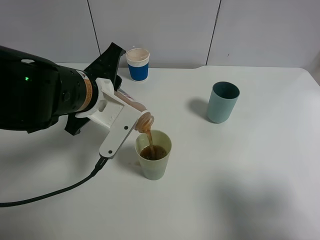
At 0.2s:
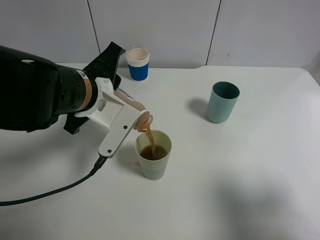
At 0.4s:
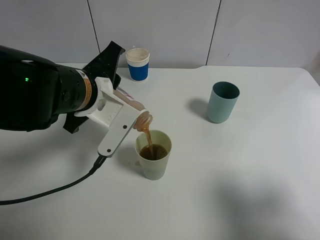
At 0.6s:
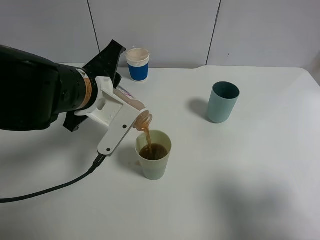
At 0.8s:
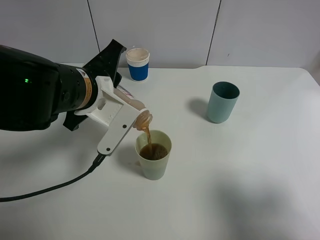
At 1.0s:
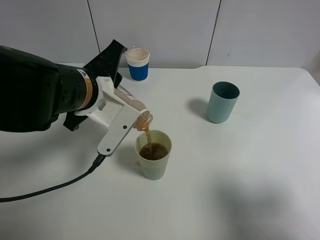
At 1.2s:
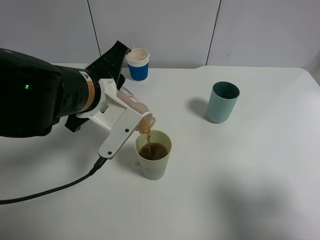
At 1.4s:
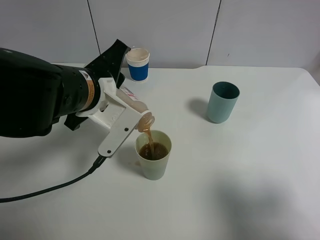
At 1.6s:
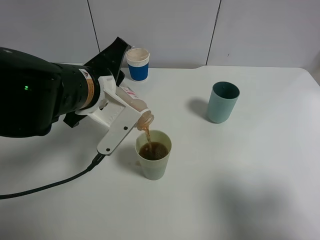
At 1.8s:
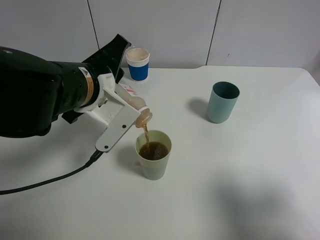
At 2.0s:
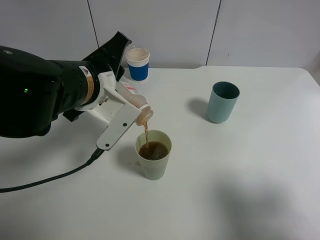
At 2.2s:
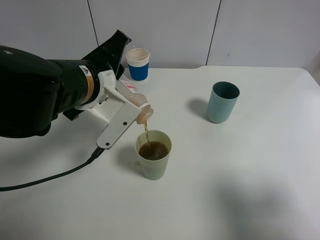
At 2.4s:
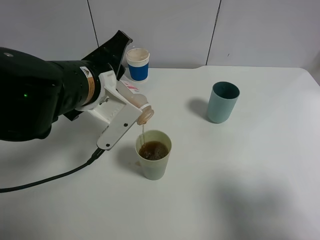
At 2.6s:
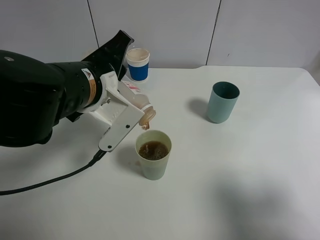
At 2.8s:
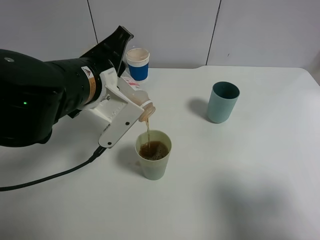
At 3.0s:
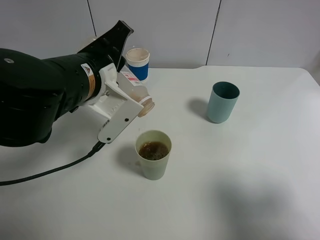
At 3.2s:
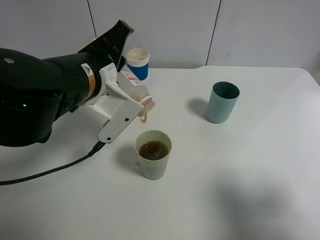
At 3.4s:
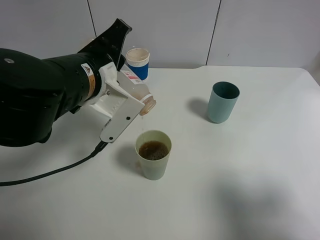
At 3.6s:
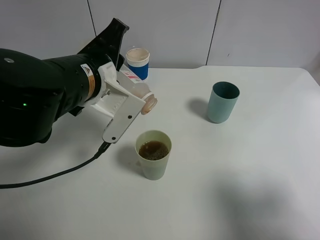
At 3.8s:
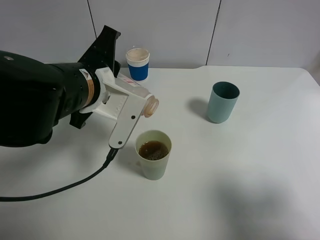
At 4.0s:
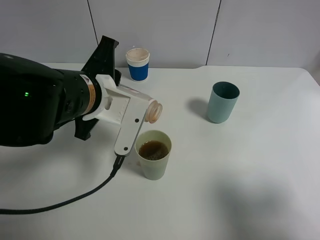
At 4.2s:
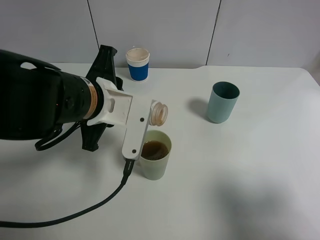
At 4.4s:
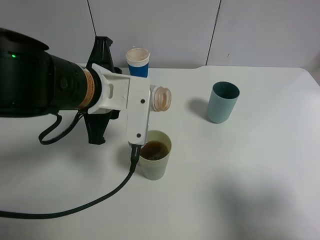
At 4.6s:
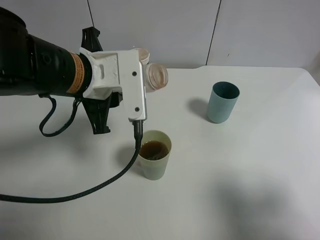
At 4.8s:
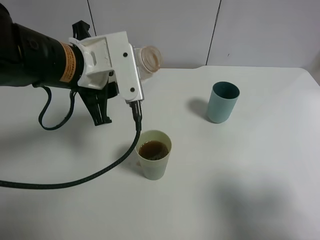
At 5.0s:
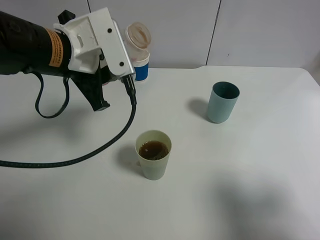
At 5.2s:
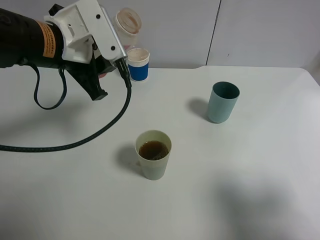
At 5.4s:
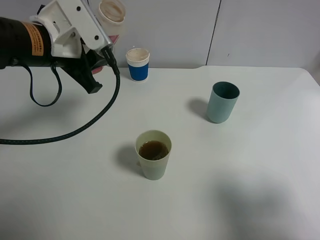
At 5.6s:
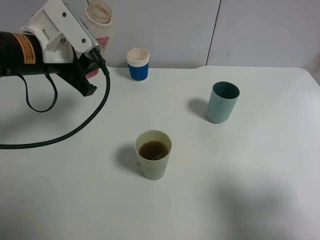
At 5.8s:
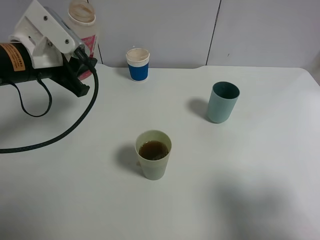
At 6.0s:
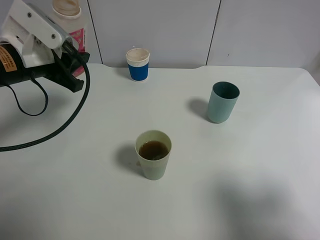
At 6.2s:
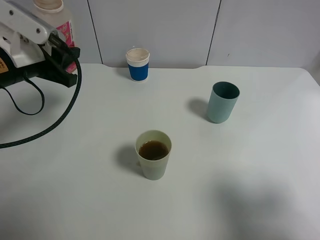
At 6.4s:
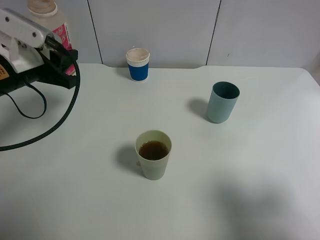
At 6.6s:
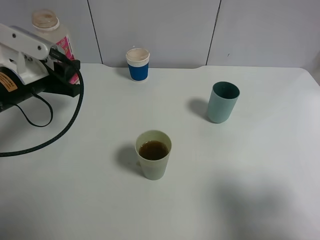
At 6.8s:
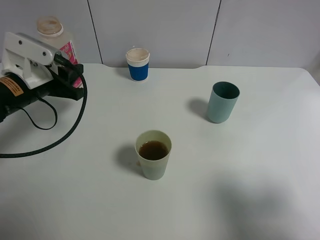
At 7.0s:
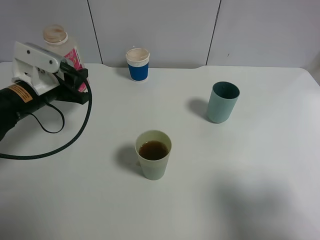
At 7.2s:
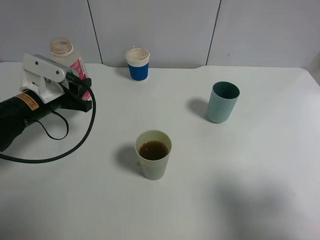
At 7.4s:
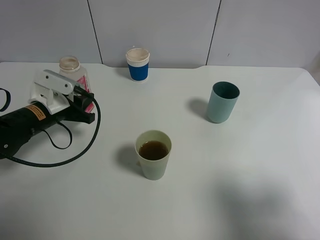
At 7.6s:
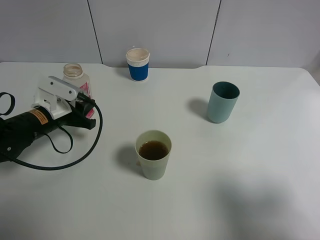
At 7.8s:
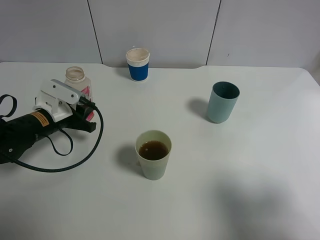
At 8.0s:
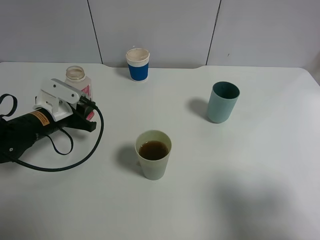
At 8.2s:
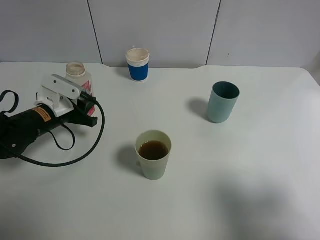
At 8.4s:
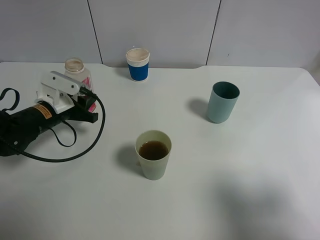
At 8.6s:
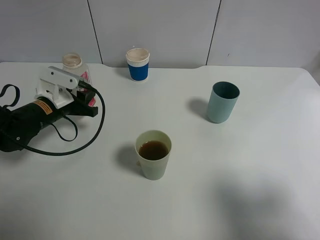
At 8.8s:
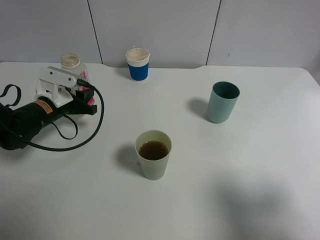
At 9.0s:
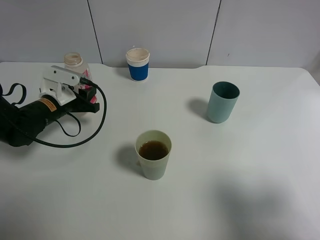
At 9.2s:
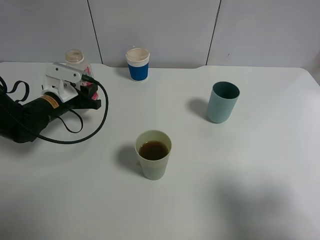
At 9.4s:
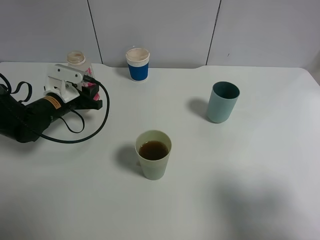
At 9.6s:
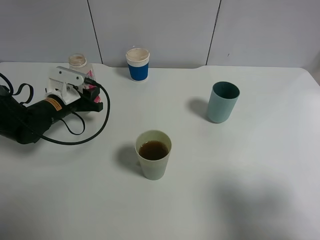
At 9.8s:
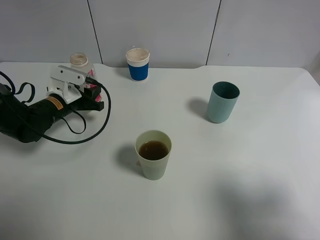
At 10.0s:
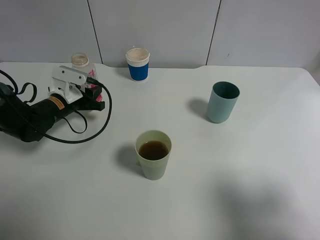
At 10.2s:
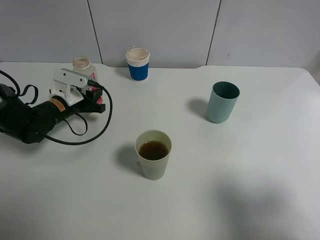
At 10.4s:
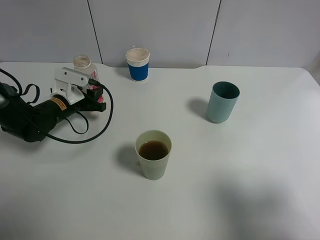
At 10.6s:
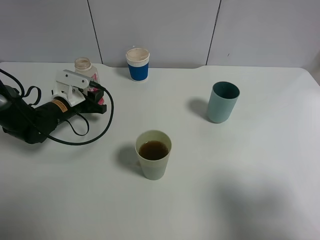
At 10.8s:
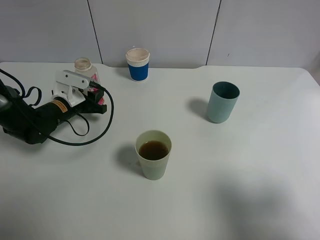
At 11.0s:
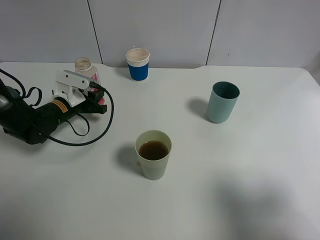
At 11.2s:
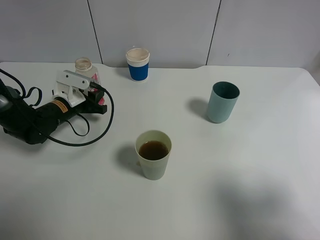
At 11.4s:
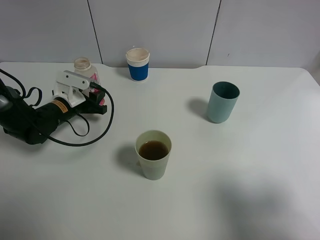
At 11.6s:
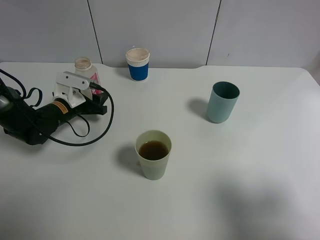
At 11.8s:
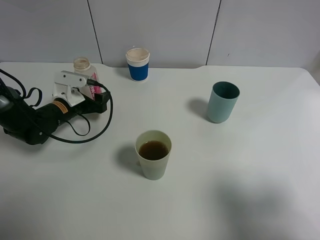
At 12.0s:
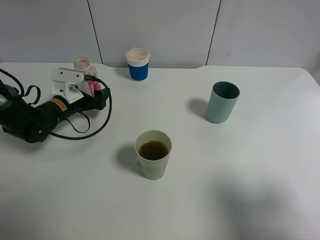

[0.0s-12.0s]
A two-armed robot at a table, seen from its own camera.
Task of the whole recording: use a gripper to hold the bottle of the drink and pour it into a random cup.
Step, 0.0s to 4.2s: Pour the cranberry juice into the White Plastic Cup with the left gripper.
0.0s to 3.0s: The grippers make only small movements.
4.4s to 6.0s: The left gripper shifts some 15 cm to the left and forward.
6.0s to 7.6s: The left gripper is displaced downward by about 15 cm.
7.6s to 9.0s: The grippers move only a little.
9.0s to 10.4s: The grippers stay close to where they were, moving slightly.
10.4s to 12.0s: The left gripper opens its fingers.

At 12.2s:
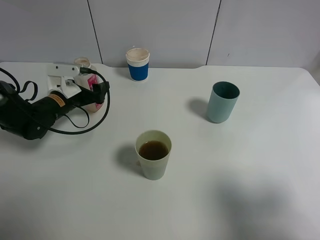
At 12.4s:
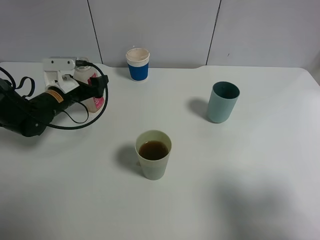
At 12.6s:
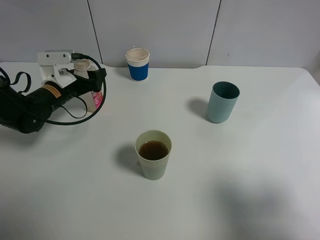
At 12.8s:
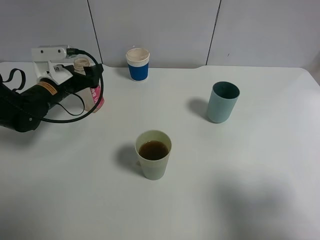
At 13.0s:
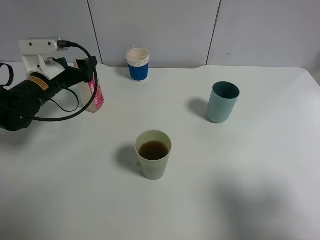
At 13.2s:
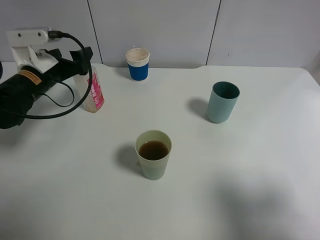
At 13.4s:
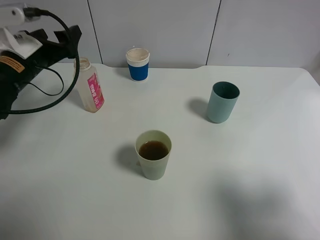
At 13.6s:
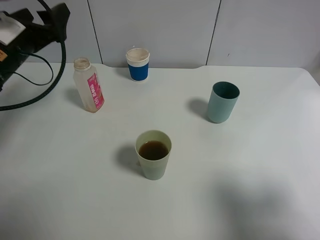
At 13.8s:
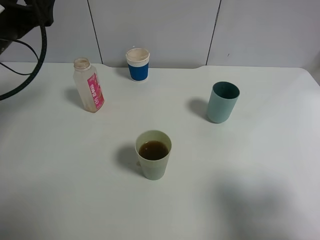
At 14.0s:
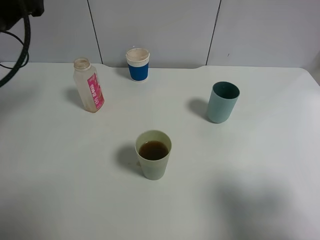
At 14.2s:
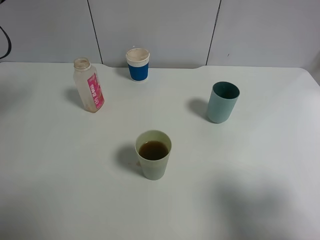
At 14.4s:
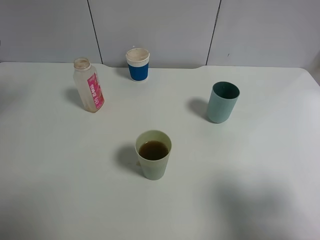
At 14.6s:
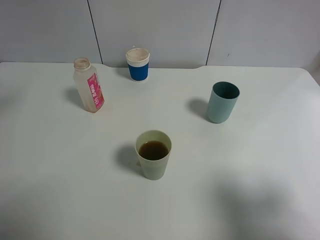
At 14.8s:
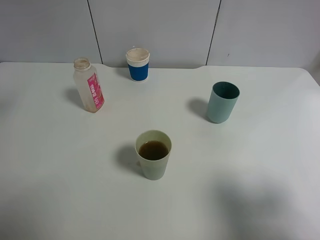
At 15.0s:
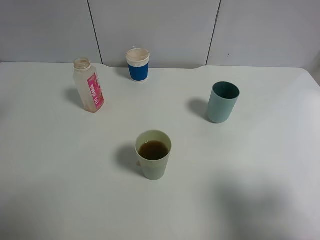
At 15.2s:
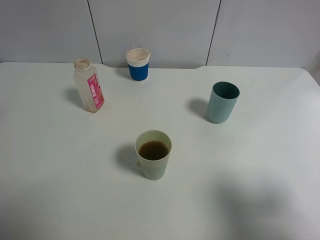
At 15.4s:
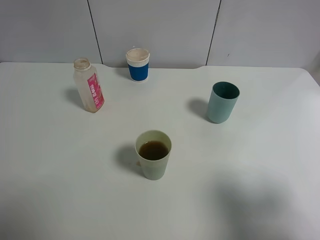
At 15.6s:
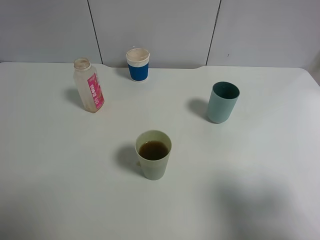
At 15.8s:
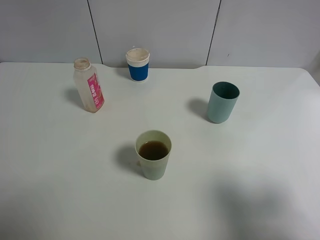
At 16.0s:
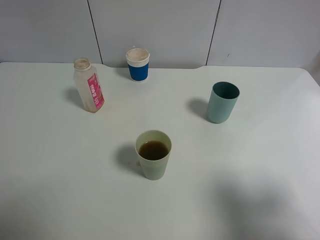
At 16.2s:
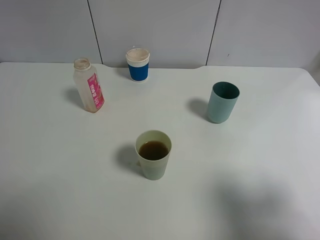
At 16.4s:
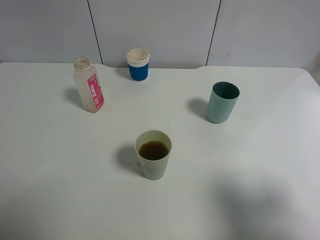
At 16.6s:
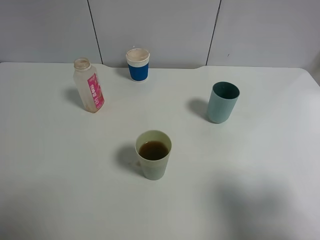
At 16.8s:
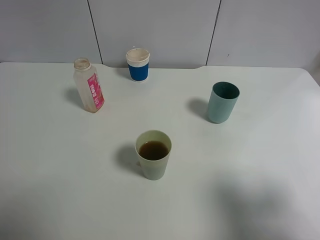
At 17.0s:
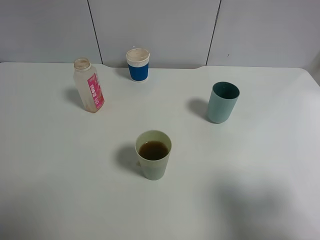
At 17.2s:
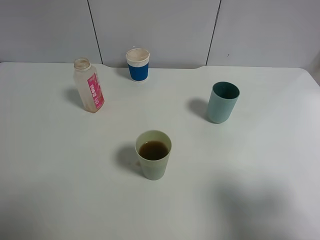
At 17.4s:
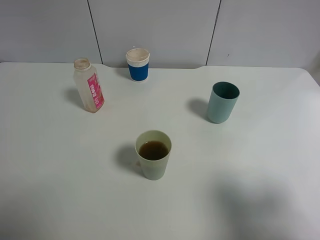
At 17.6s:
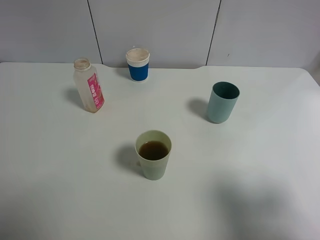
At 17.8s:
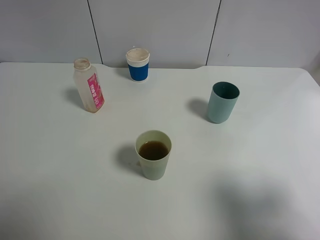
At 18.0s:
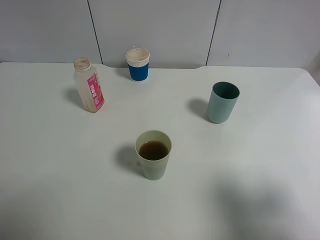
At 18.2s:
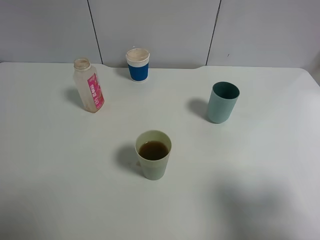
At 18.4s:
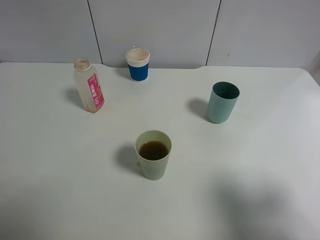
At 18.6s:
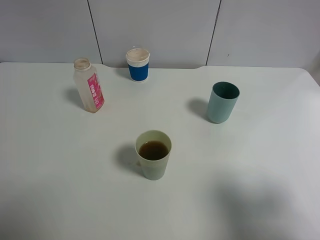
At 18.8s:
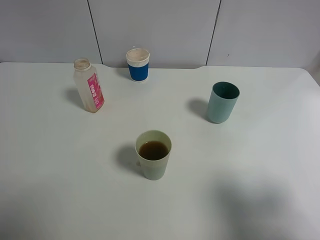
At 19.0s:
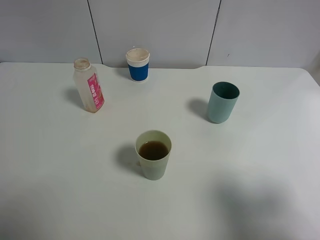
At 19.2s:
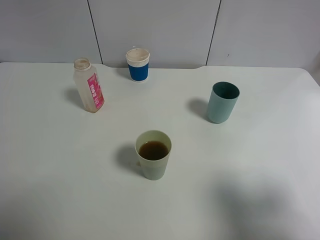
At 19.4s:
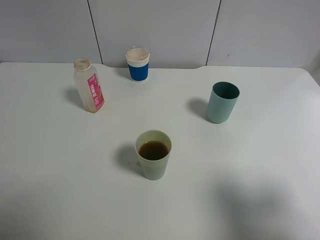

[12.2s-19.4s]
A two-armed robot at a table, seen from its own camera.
Task of the whole recording: use a gripper to hold the bottle of the drink and pour it into a random cup.
12.2s to 13.6s: The left gripper shifts some 15 cm upward.
13.6s to 15.0s: The left gripper goes some 20 cm backward and upward.

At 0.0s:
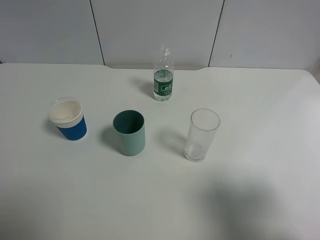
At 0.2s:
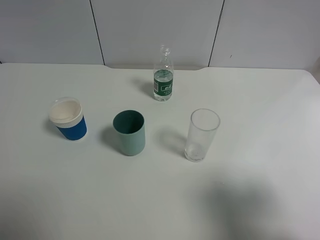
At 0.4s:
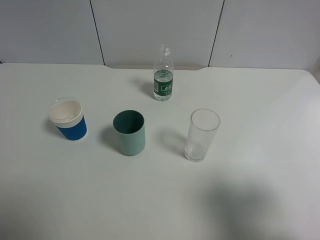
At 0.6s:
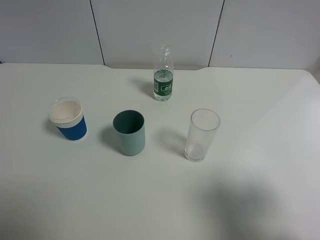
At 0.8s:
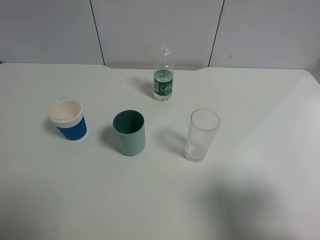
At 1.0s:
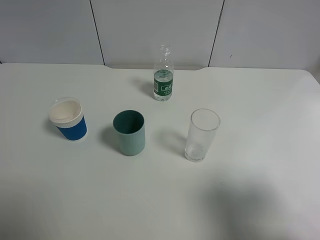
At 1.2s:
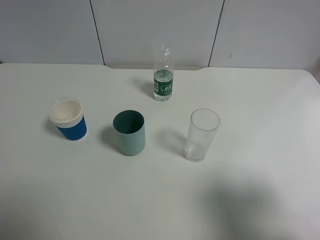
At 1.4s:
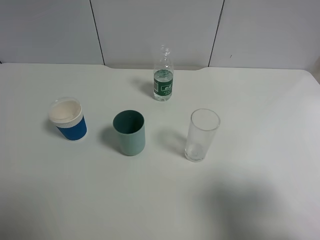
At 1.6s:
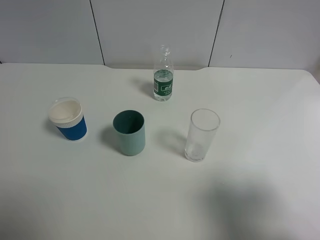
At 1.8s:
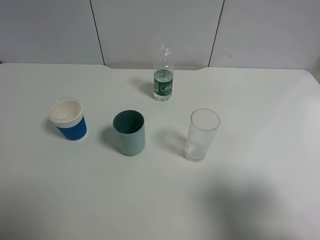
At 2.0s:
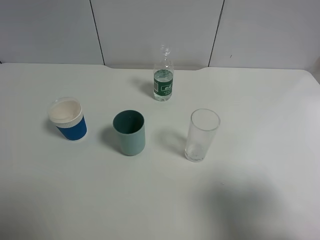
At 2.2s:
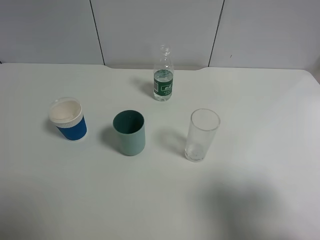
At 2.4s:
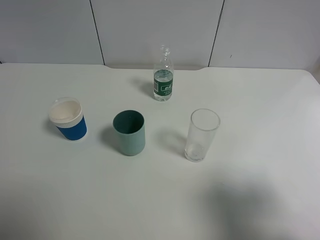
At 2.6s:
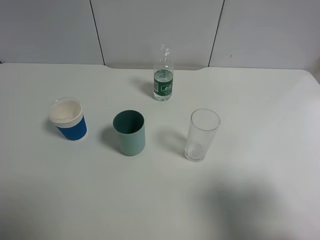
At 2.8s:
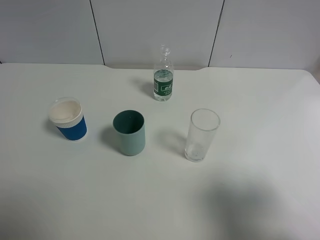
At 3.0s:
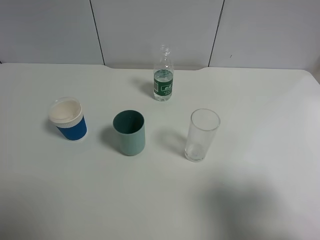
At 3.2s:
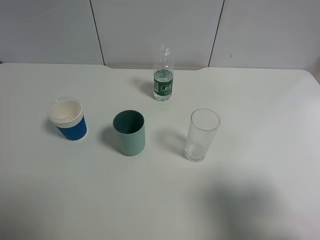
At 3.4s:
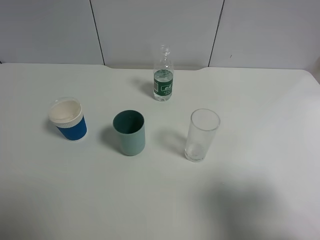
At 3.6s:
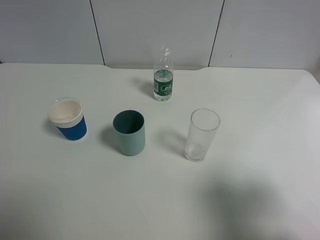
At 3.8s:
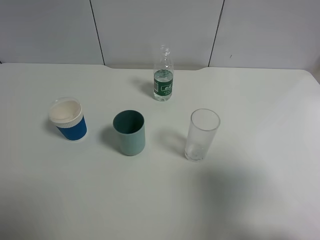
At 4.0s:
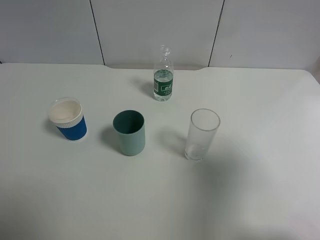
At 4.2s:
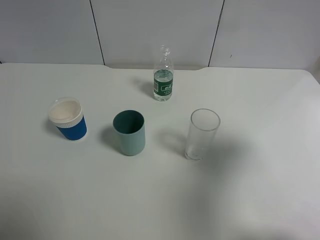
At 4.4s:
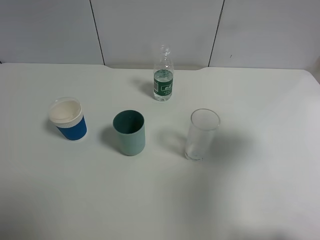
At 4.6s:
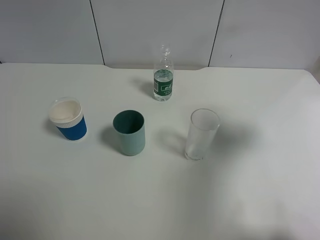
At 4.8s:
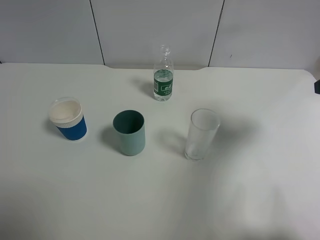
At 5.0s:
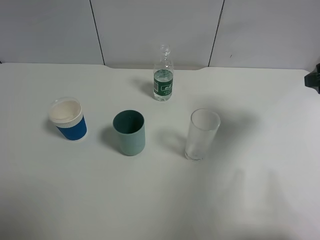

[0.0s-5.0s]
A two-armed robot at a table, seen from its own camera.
Task of the whole recording: use a gripper to hold the bottle of the drink and pour it into a random cup.
0.0s to 3.4s: Both grippers stay about where they are.
3.4s to 5.0s: The right gripper goes approximately 20 cm forward.
